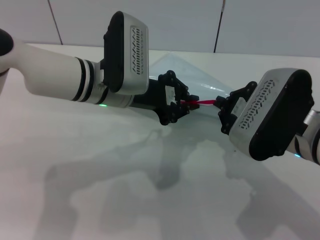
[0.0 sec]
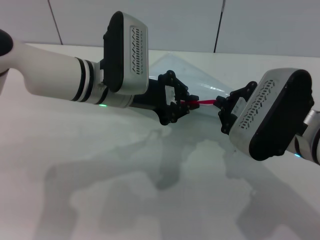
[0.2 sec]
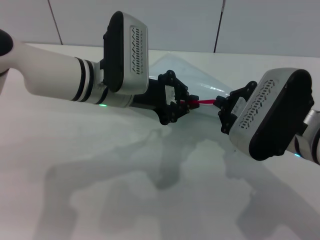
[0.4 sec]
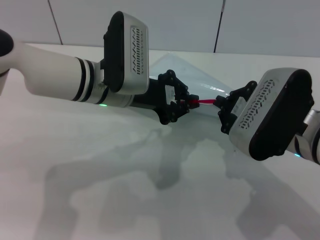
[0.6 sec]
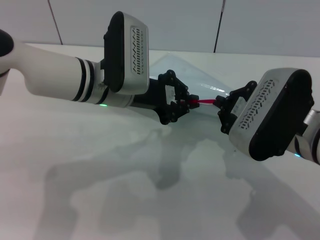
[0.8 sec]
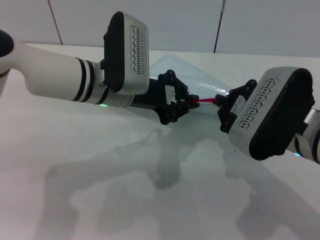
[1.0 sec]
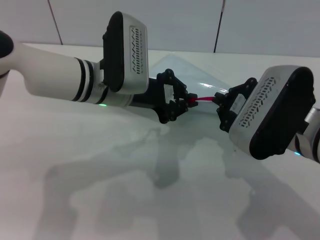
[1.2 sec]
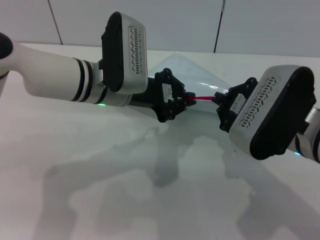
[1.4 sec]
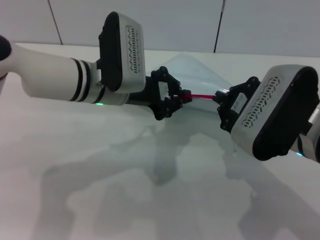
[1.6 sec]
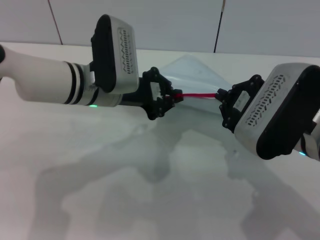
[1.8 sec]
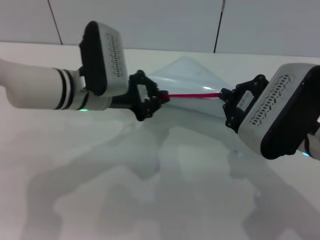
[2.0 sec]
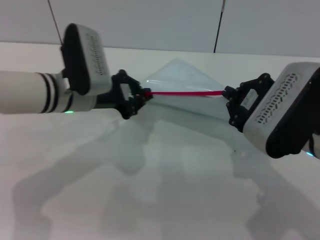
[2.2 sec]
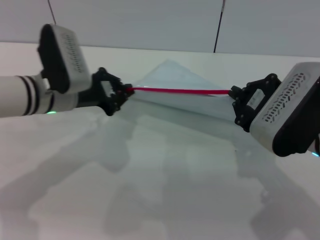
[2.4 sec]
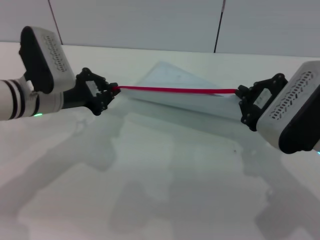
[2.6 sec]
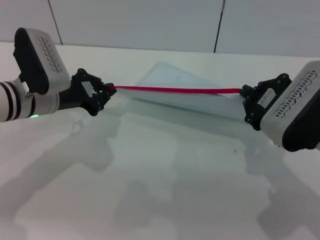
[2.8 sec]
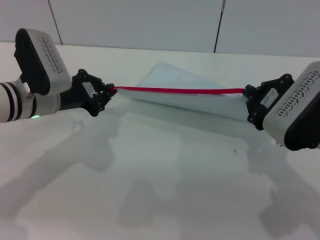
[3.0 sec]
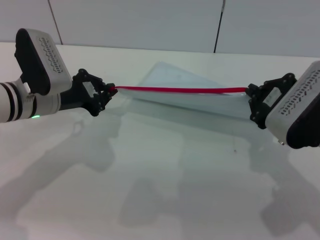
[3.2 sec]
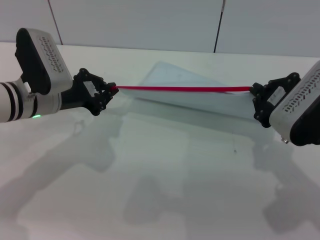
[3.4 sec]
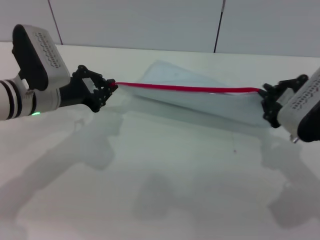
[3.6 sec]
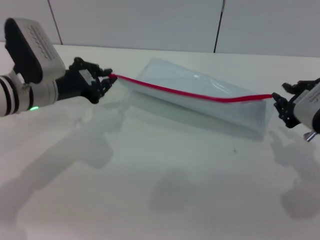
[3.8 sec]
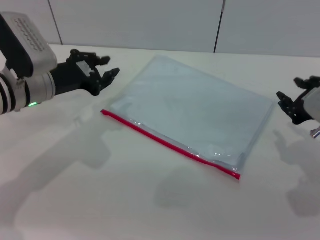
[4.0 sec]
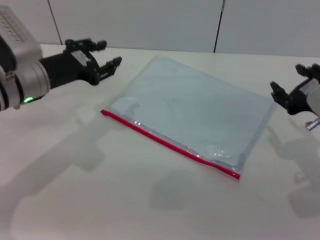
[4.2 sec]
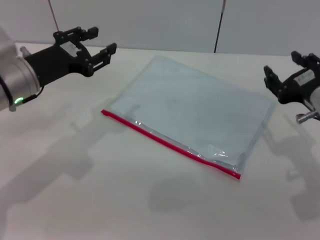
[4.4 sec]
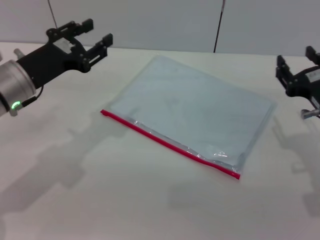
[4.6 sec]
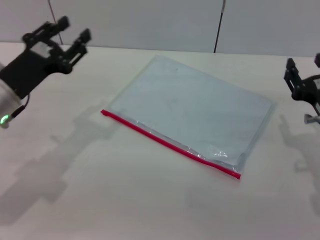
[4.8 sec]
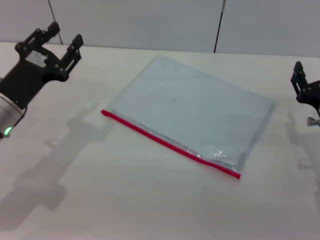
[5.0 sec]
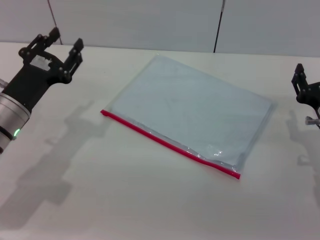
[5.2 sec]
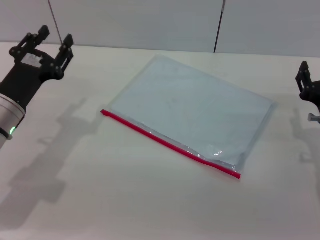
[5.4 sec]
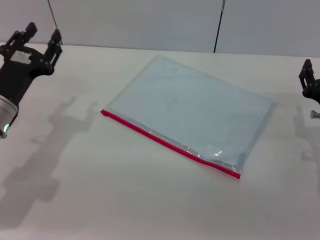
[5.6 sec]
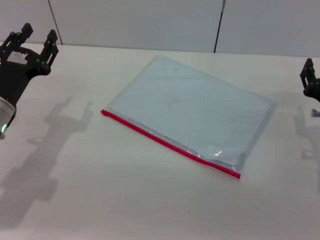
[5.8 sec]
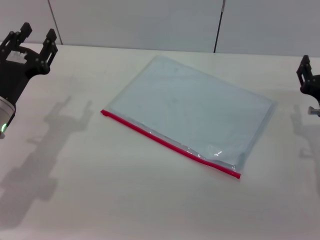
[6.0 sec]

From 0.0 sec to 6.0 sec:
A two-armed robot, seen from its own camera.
Step, from 0.0 sec to 3.4 sec: Pulling up the zipper on the transparent plastic bag with the left gripper to close it.
Step, from 3.6 sec to 4.8 sec: Place the transparent plastic bag.
From 0.0 sec to 1.6 sec: Neither gripper changes place.
From 1.6 sec to 3.0 sec: The left gripper goes roughly 10 cm to the left.
From 3.0 sec to 4.4 sec: The right gripper opens up; the left gripper opens its fingers.
From 4.4 sec to 6.0 sec: Both grippers move downward, roughly 5 cm.
